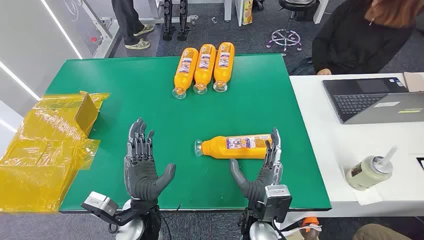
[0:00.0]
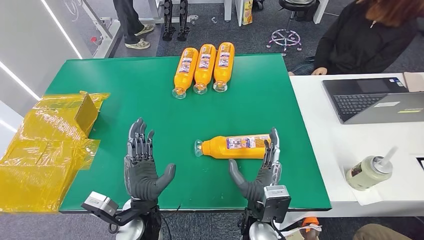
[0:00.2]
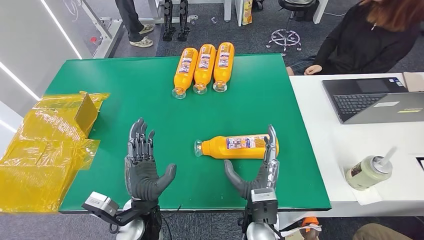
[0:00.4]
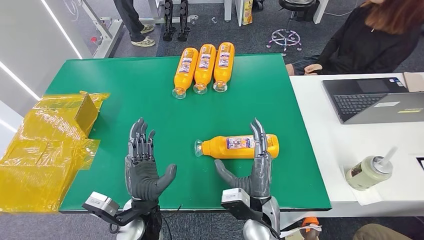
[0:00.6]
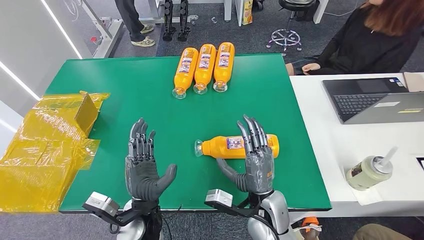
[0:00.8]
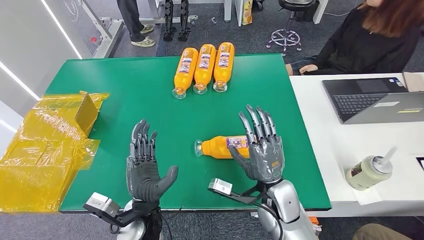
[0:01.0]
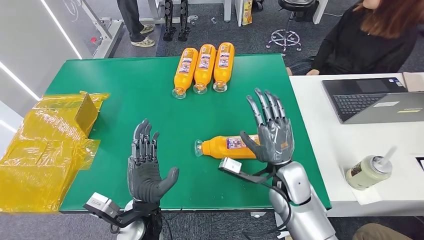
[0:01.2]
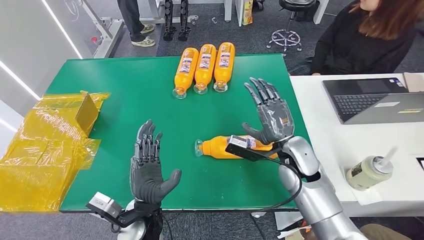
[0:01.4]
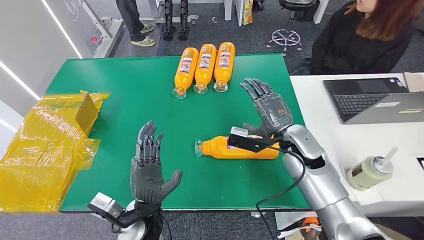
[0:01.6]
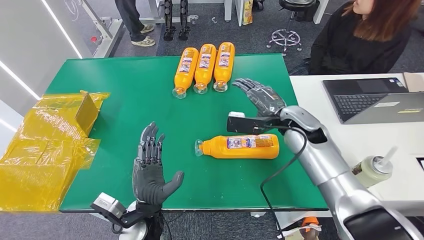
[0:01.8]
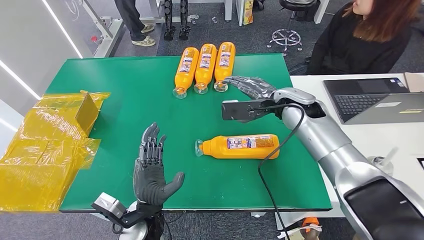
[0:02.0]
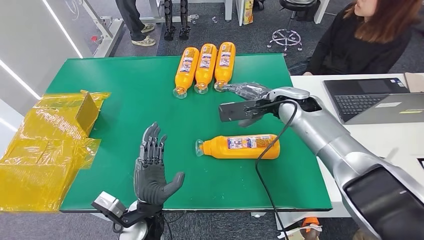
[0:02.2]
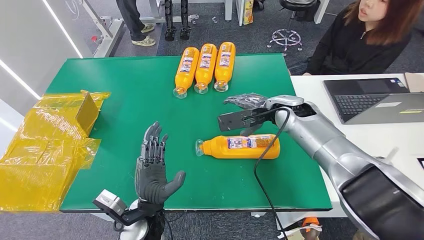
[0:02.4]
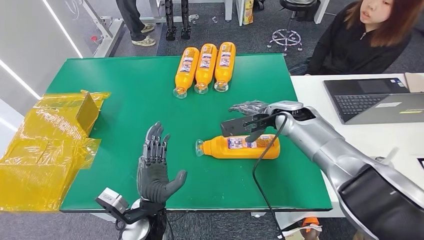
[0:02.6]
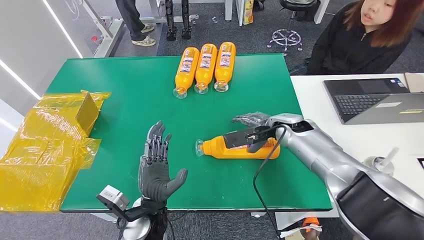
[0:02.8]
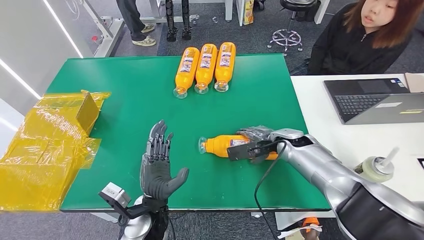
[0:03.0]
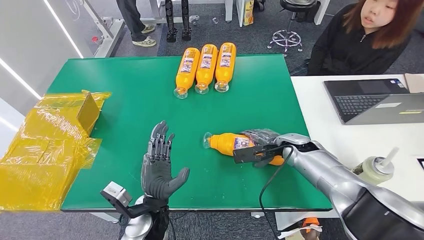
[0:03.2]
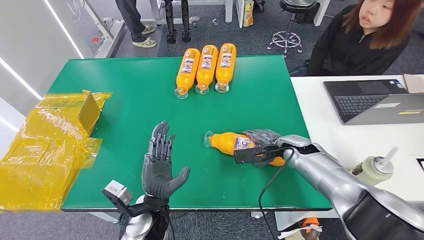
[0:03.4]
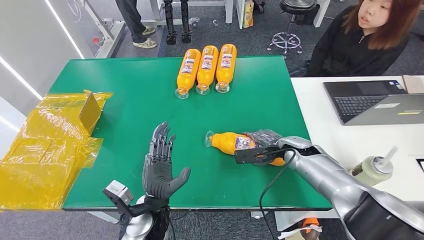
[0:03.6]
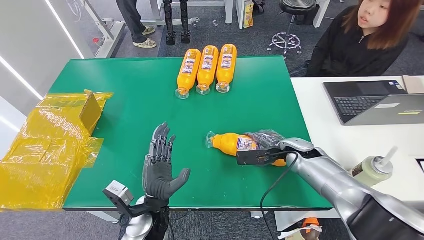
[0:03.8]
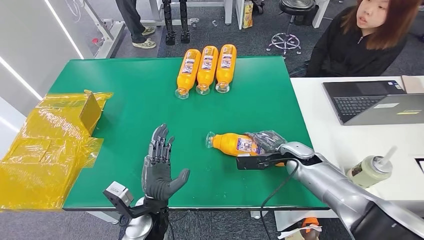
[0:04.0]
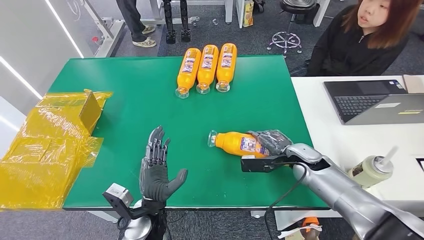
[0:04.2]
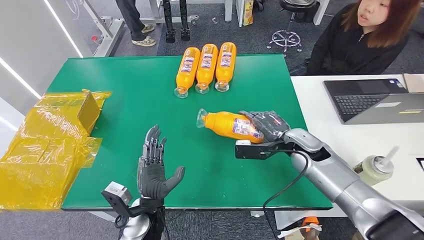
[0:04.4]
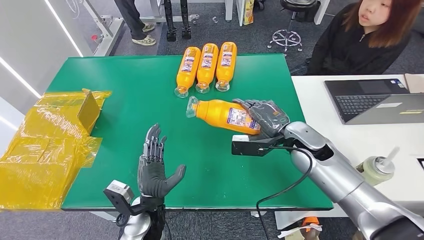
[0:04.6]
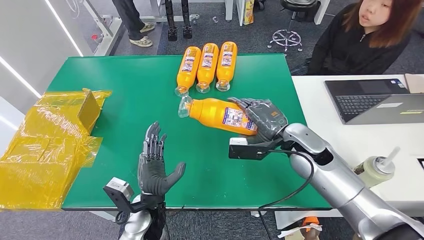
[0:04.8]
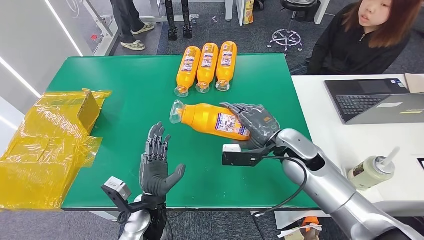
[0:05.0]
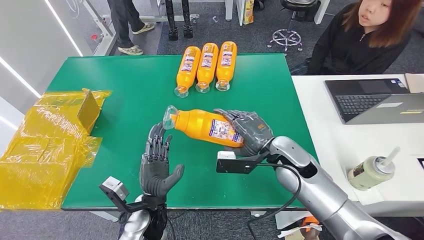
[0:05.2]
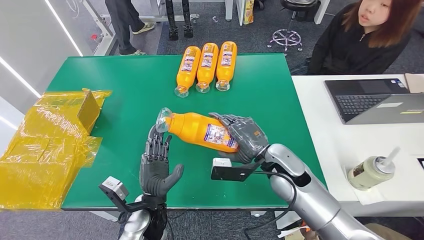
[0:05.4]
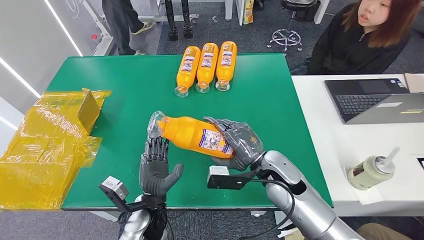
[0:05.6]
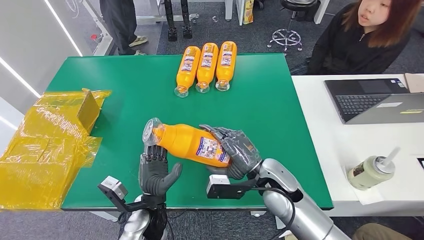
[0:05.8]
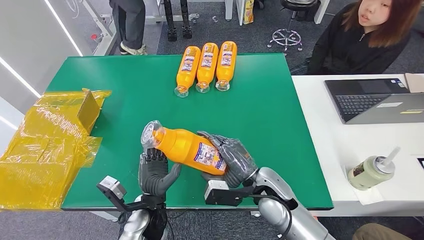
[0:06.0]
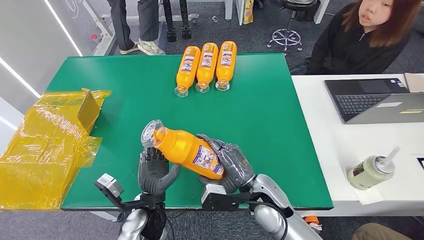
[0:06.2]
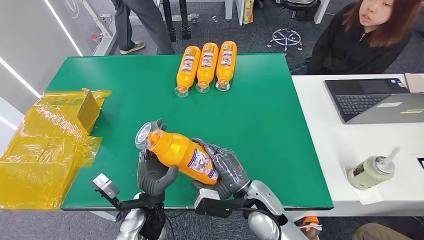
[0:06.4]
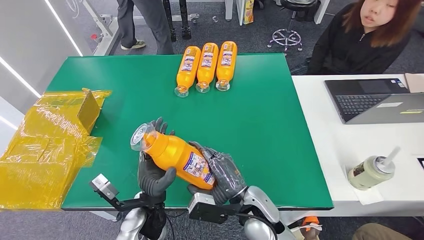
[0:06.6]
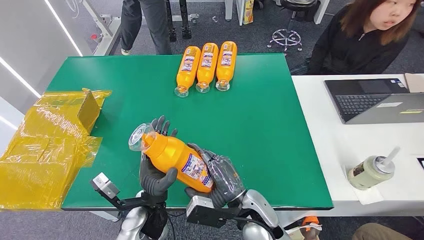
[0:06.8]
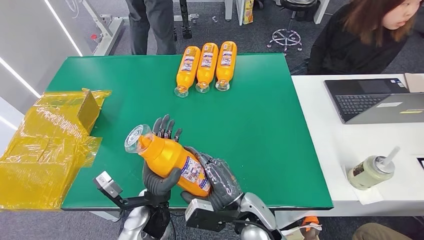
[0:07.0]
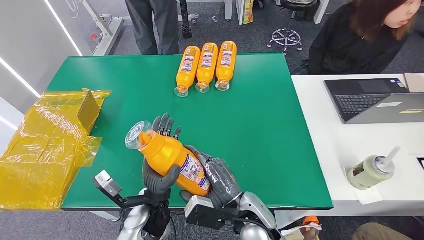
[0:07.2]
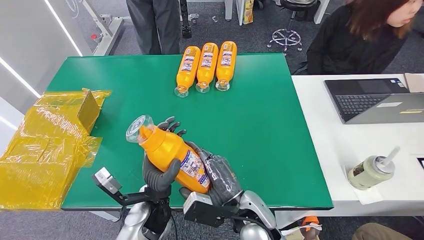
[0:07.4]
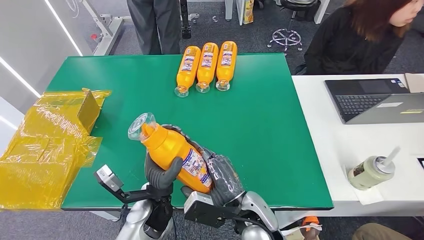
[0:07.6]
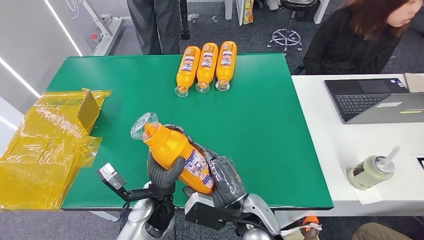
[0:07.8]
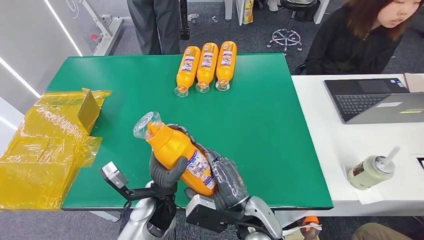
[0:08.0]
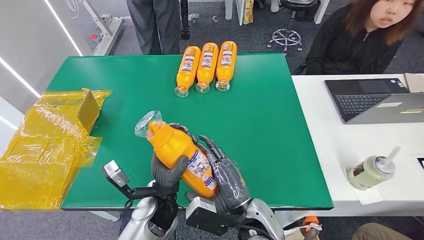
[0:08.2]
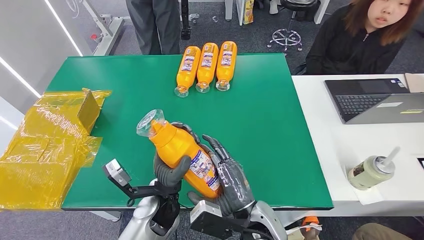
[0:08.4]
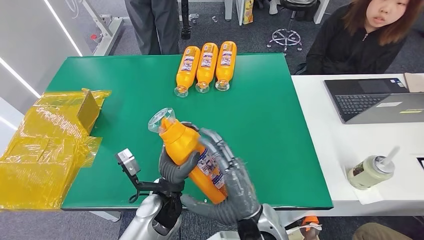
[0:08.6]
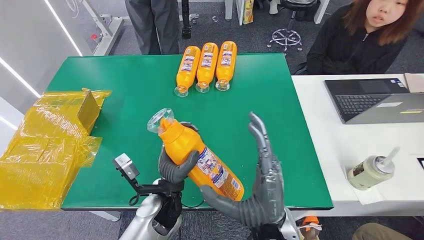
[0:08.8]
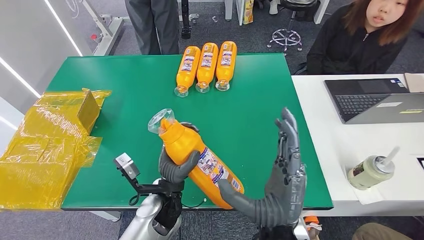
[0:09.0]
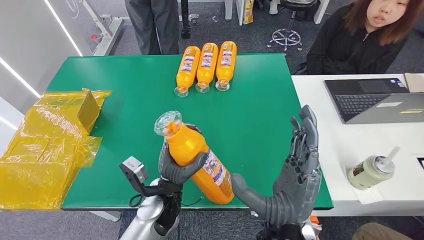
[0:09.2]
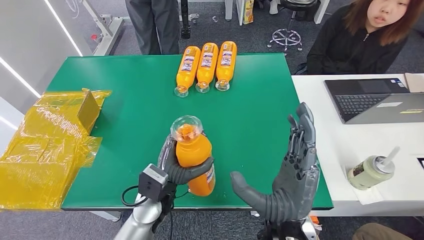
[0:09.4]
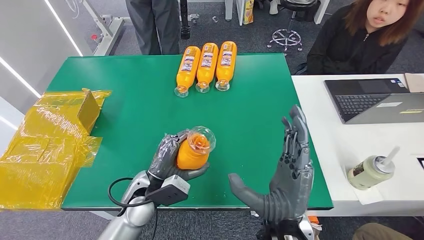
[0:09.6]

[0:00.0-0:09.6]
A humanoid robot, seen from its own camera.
Step, 0:00.0 to 0:05.2: Pick up the bottle from the table.
0:01.6 to 0:03.2: The right hand is displaced downward and to the right by roughly 10 cm.
0:03.2 to 0:04.8: The right hand is displaced upward by roughly 10 cm.
0:06.4 to 0:08.0: The right hand travels backward by roughly 5 cm.
0:08.0 to 0:09.6: The right hand is displaced upward by approximately 5 cm. Meanwhile the left hand travels to the left by about 5 cm.

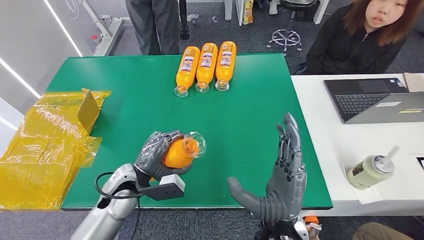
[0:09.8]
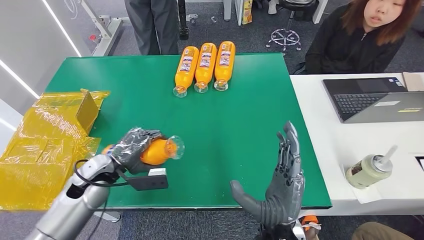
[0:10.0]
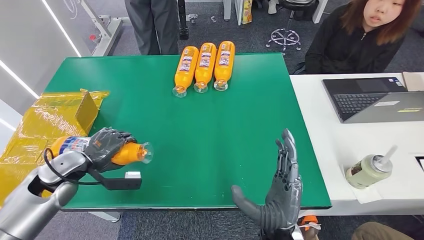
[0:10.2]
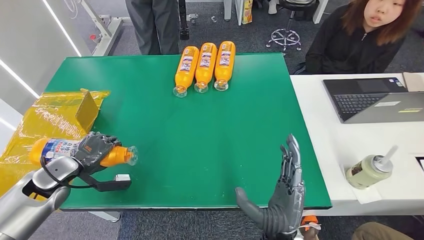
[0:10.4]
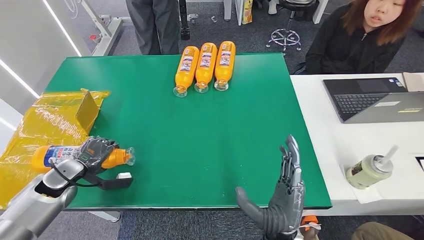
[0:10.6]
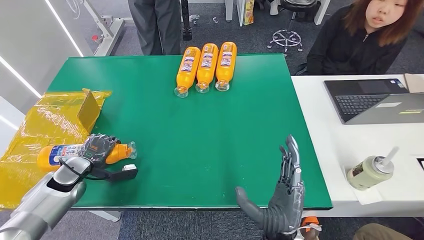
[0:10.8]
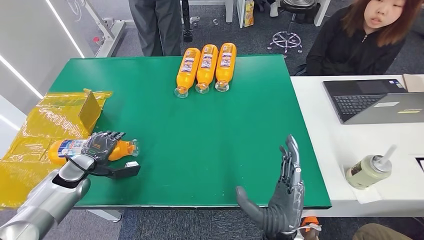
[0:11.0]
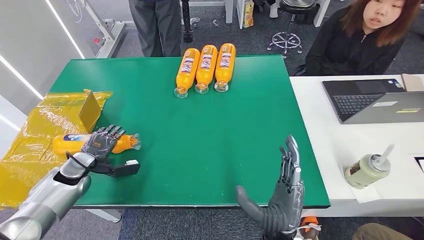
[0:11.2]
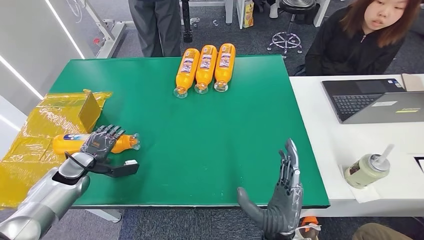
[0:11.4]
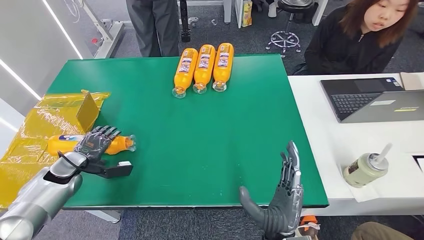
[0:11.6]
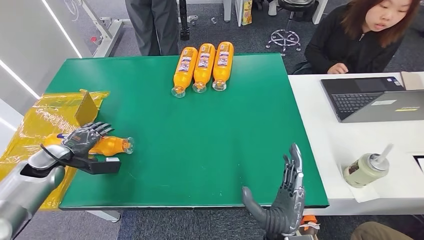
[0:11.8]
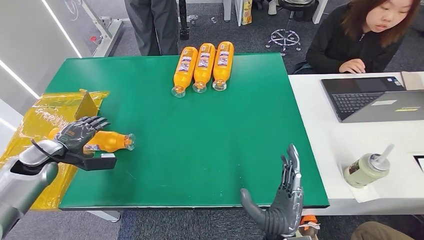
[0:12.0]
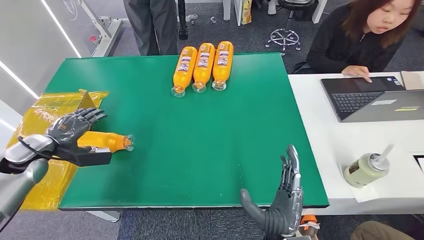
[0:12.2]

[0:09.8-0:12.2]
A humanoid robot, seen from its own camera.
Step, 0:09.8 to 0:12.0: Turn the bottle to the front side.
